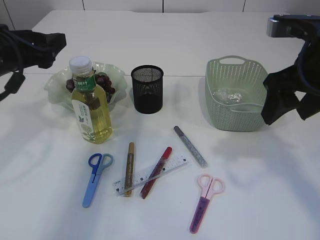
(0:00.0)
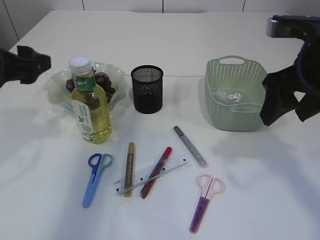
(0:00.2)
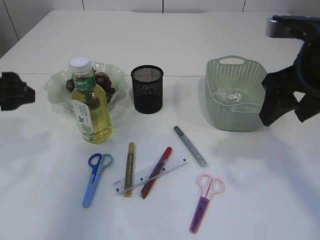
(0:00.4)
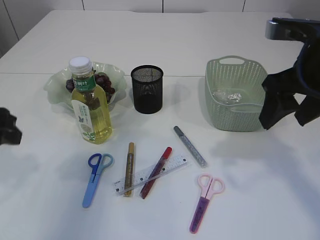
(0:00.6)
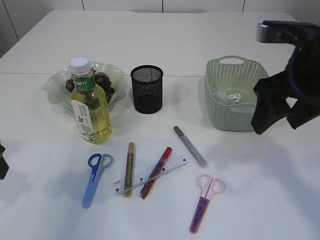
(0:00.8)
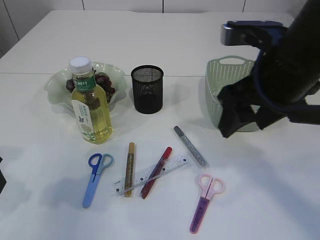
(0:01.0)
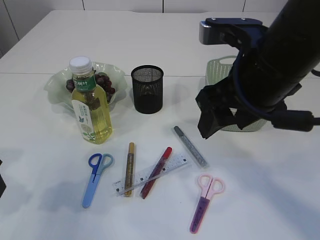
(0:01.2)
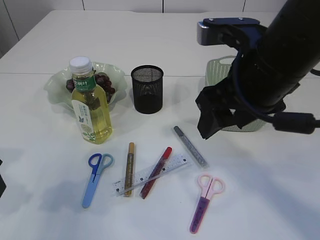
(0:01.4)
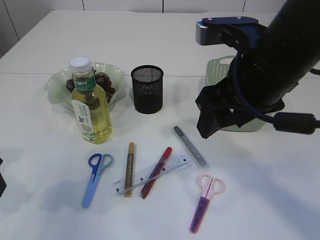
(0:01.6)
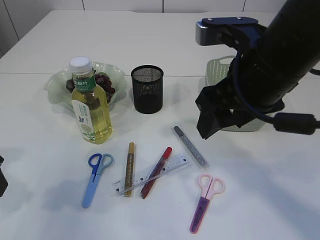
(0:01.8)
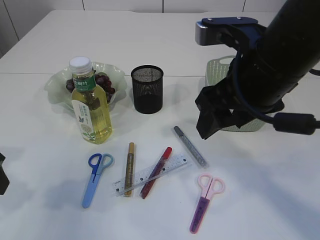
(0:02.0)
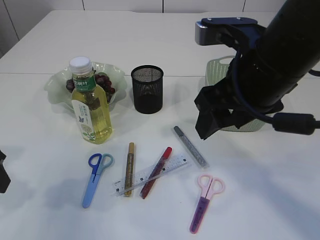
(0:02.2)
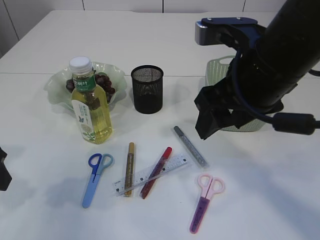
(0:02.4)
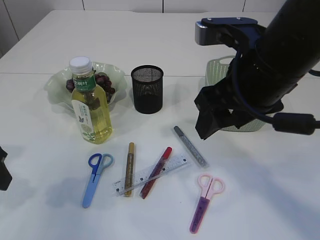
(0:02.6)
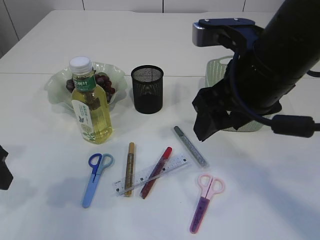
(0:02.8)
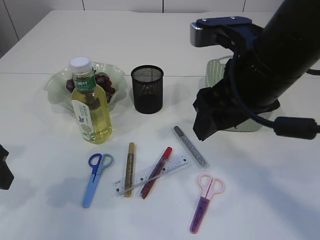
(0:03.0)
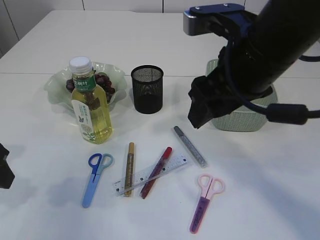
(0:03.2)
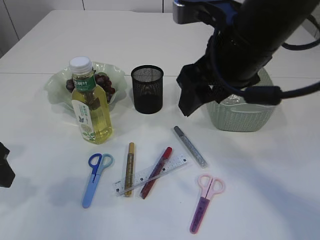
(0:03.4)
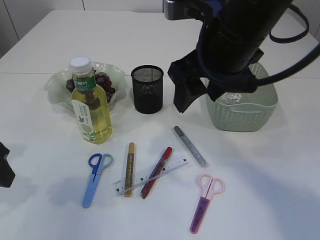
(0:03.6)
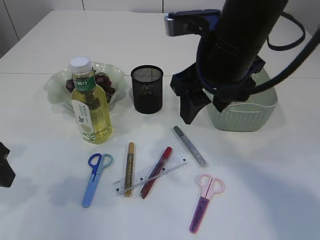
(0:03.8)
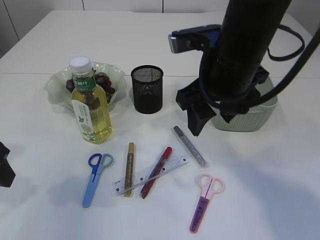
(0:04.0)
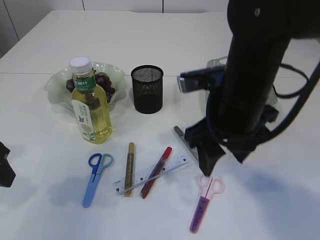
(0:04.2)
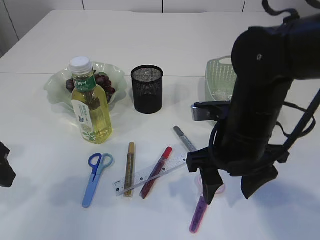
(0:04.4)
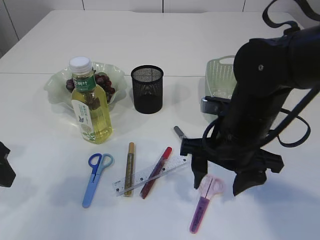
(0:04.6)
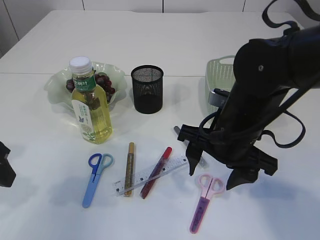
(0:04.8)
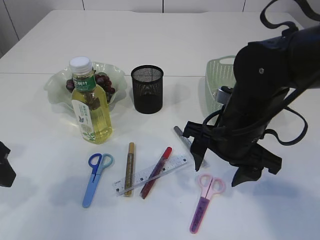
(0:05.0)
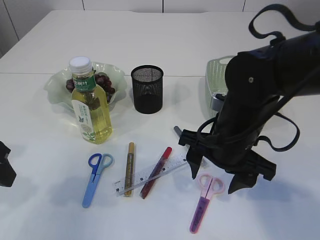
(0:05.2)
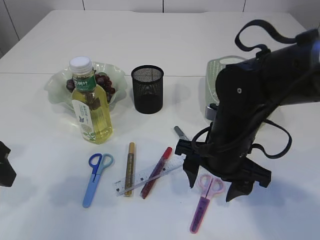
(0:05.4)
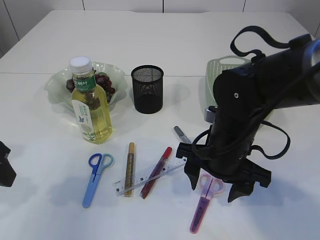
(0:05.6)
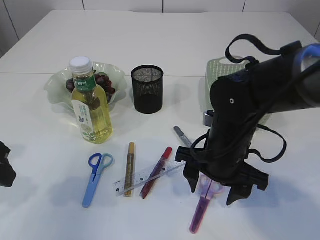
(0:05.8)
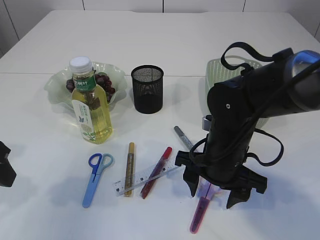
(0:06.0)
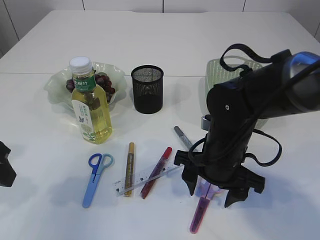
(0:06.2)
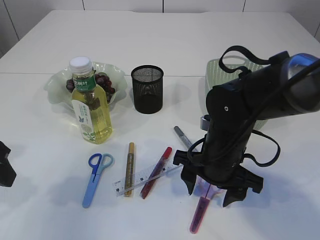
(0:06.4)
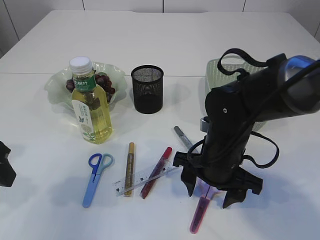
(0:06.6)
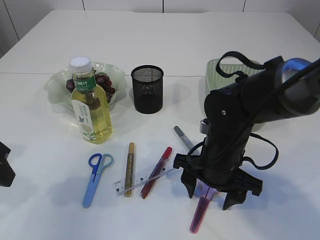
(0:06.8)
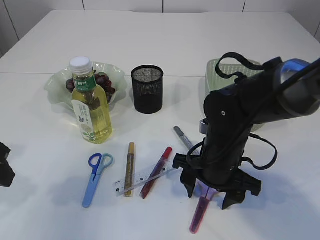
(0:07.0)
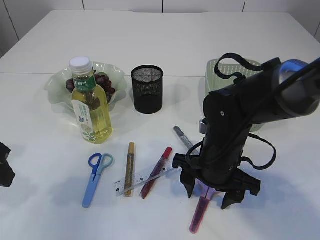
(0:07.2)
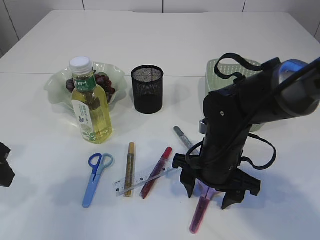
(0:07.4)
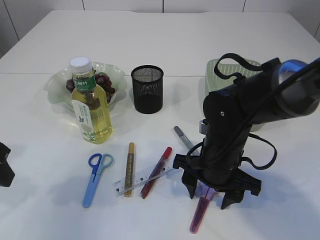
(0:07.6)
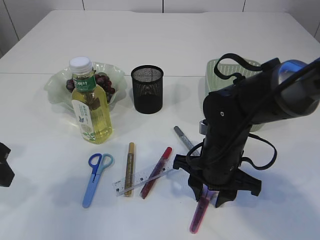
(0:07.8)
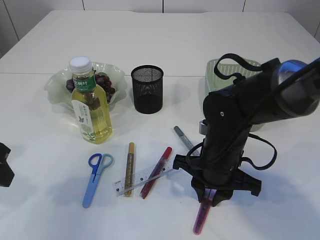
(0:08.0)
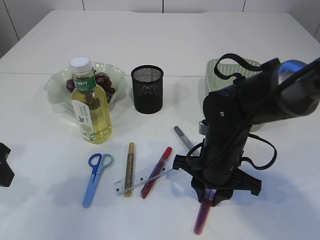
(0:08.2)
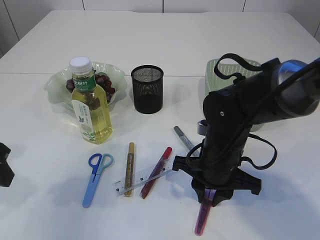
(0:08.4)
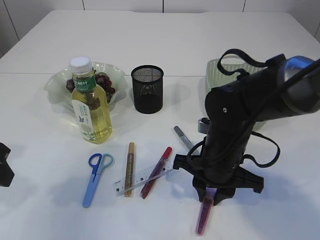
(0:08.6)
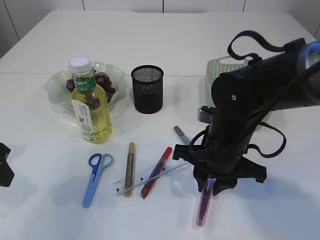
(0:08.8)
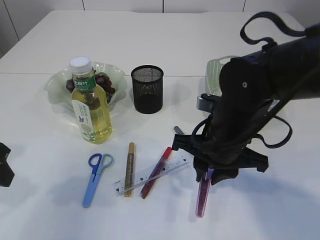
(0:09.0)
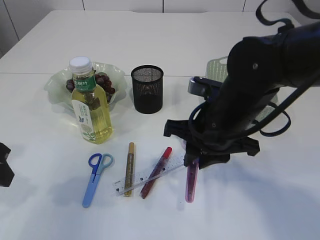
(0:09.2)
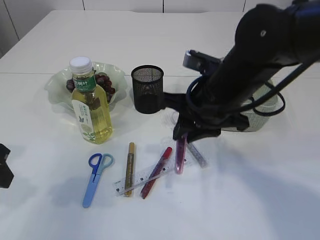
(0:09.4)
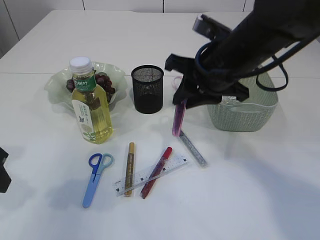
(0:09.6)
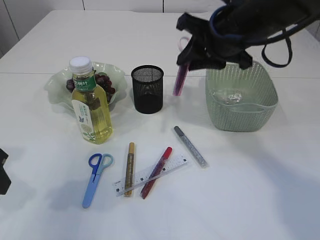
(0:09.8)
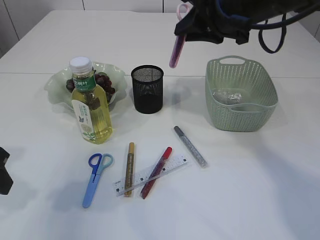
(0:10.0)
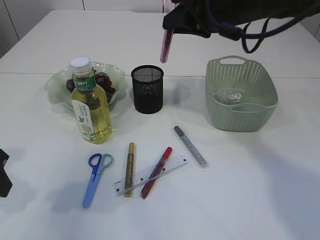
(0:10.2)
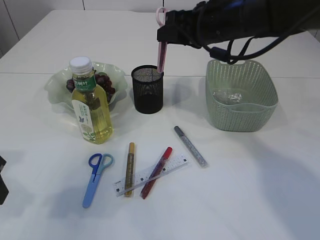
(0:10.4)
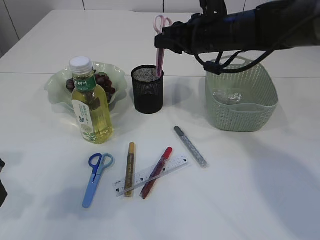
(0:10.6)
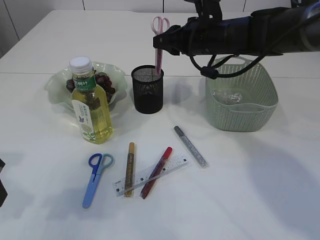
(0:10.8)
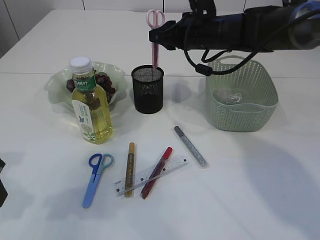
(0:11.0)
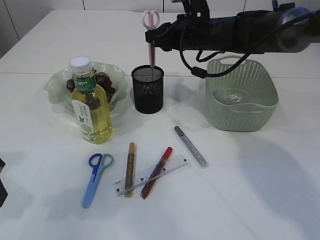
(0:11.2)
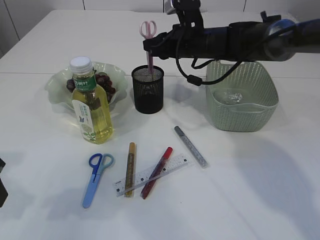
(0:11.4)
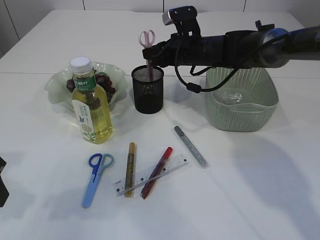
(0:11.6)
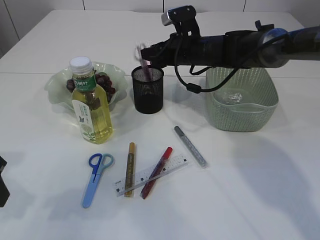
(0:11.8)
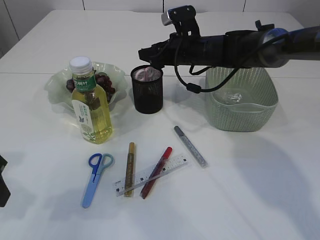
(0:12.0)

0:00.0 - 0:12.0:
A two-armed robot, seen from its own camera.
Step, 0:00.0 - 0:09.0: pick up the pink scissors.
0:00.0 - 0:01.6: The left gripper goes approximately 10 cm backward; the right gripper heads to the left, covering roughly 10 cm.
0:01.6 - 0:03.0: Both grippers stay put.
0:03.0 - 0:04.4: The right gripper goes about 10 cm downward.
0:04.4 - 0:06.0: The right gripper goes some 5 cm downward.
0:06.0 - 0:07.6: There are only small adjustments of the grippers.
0:07.6 - 0:09.0: The right gripper is displaced upward by about 5 cm, and closes up.
0:09.0 - 0:10.4: The right gripper goes about 15 cm forward and upward.
0:10.4 - 0:12.0: The right gripper shifts approximately 10 cm downward and forward, and opens its fingers.

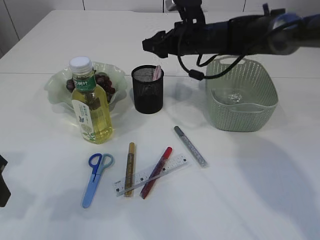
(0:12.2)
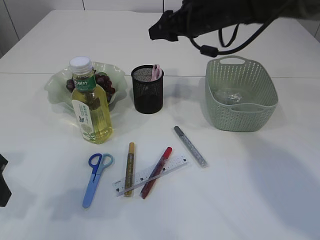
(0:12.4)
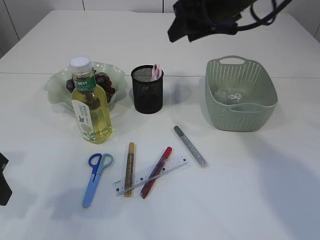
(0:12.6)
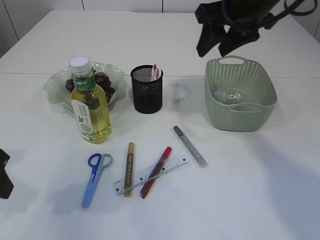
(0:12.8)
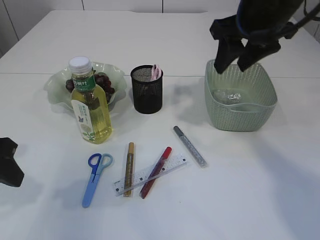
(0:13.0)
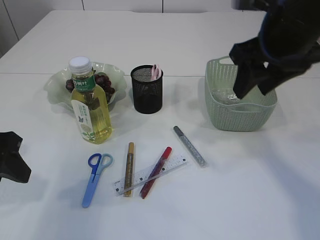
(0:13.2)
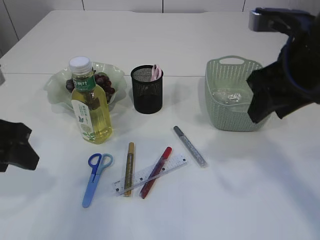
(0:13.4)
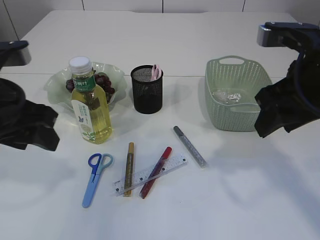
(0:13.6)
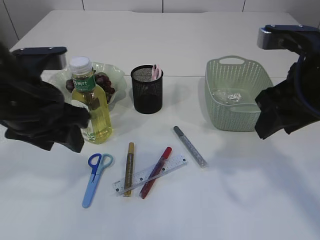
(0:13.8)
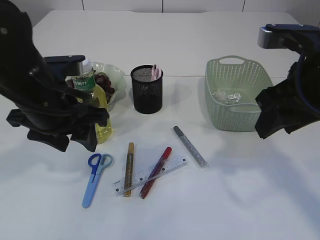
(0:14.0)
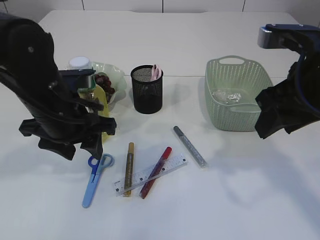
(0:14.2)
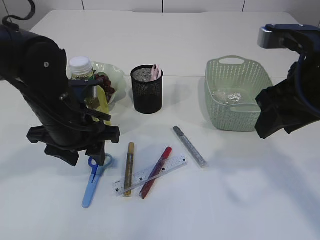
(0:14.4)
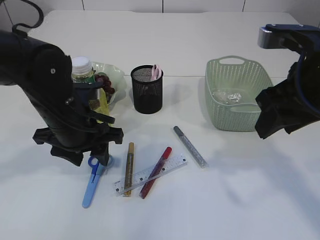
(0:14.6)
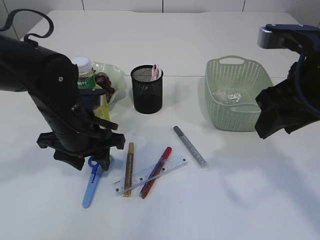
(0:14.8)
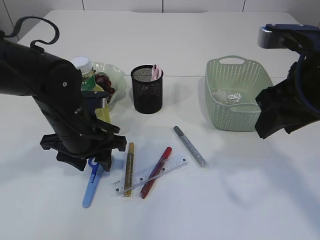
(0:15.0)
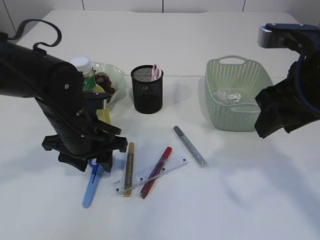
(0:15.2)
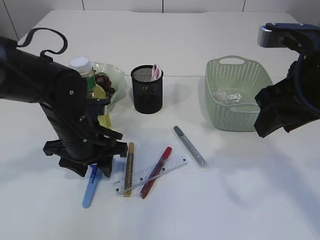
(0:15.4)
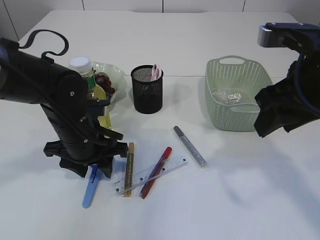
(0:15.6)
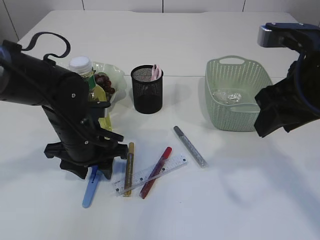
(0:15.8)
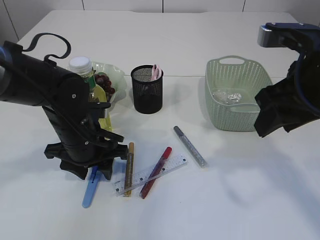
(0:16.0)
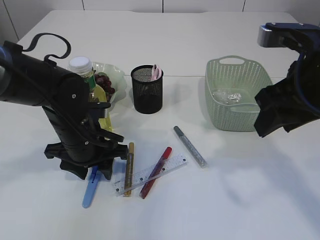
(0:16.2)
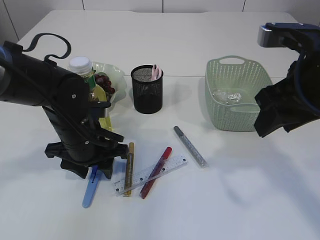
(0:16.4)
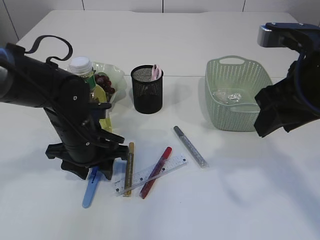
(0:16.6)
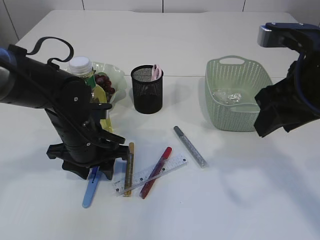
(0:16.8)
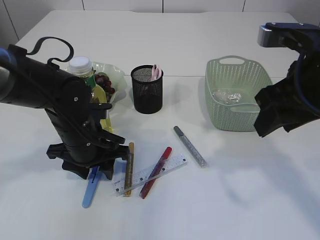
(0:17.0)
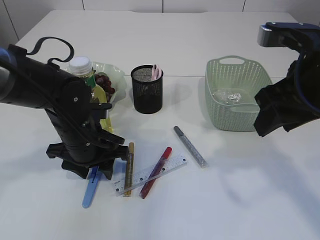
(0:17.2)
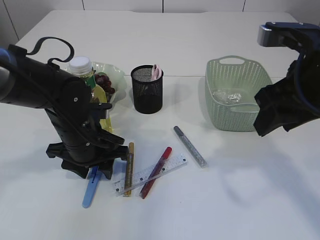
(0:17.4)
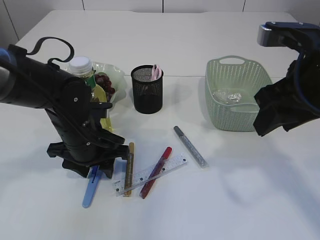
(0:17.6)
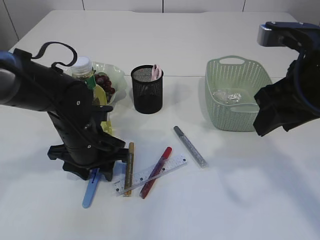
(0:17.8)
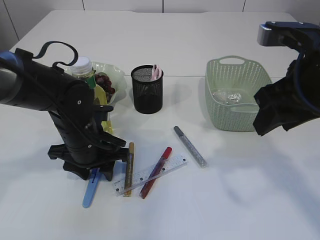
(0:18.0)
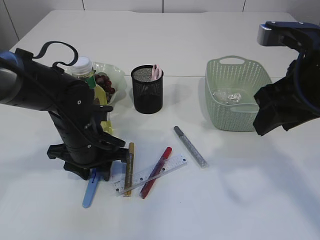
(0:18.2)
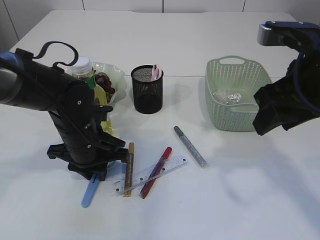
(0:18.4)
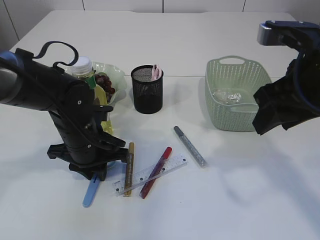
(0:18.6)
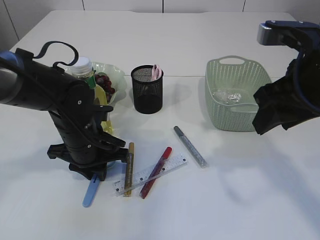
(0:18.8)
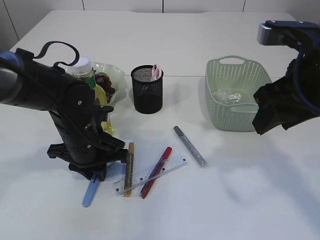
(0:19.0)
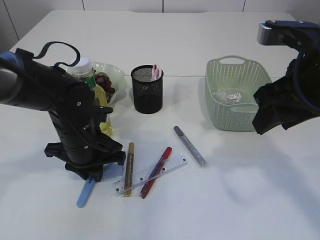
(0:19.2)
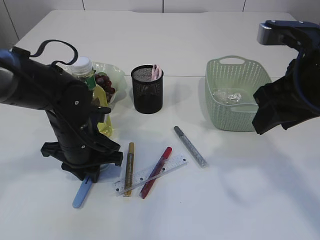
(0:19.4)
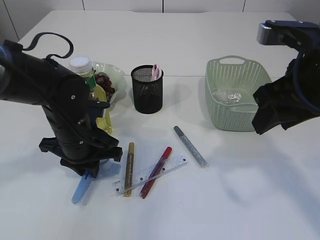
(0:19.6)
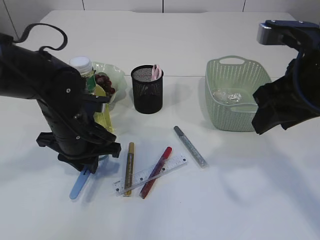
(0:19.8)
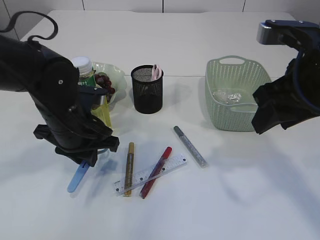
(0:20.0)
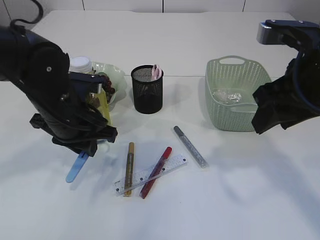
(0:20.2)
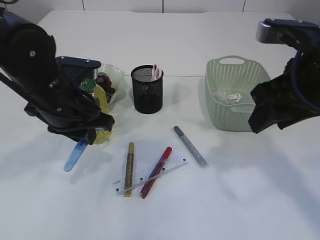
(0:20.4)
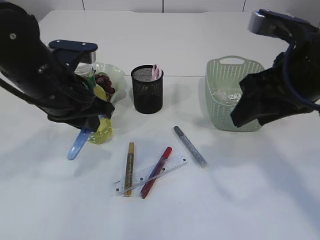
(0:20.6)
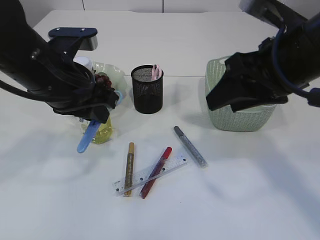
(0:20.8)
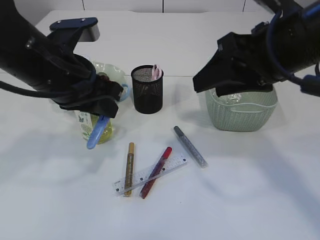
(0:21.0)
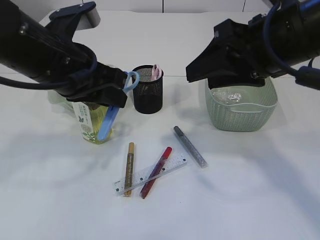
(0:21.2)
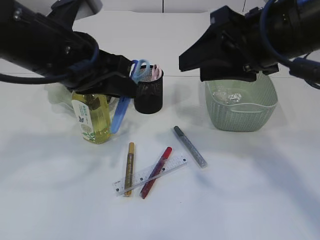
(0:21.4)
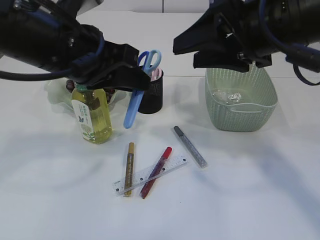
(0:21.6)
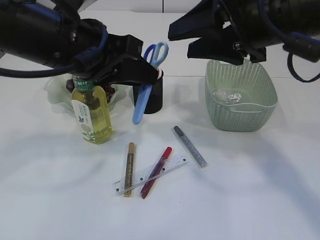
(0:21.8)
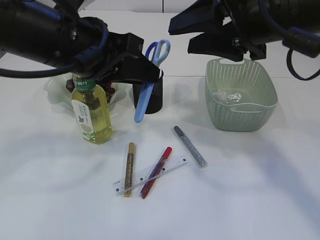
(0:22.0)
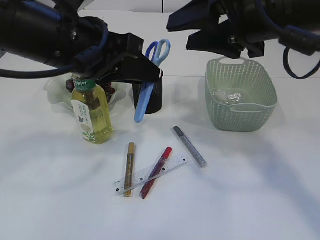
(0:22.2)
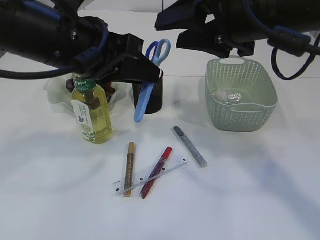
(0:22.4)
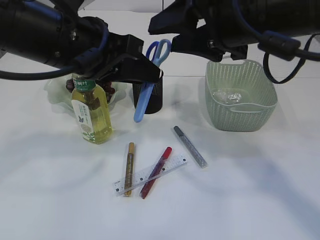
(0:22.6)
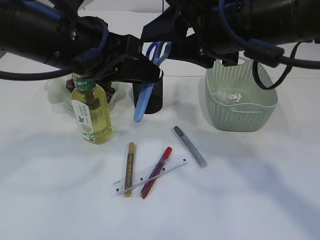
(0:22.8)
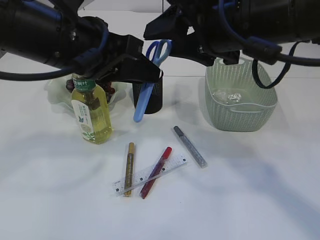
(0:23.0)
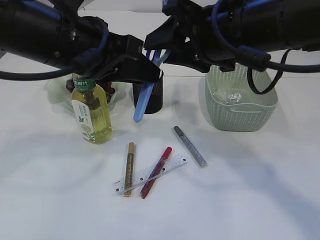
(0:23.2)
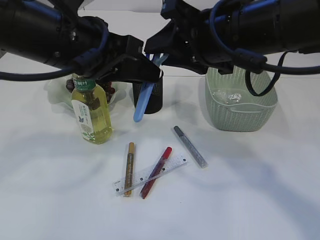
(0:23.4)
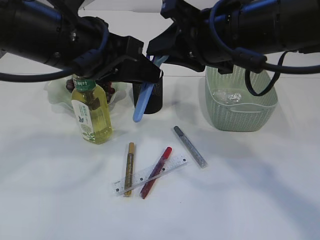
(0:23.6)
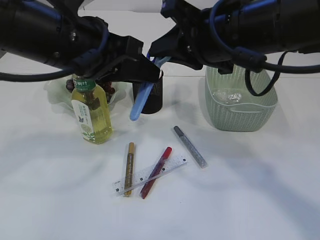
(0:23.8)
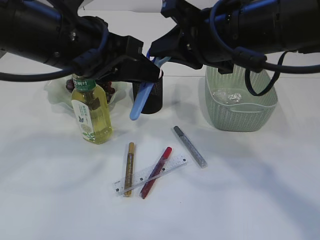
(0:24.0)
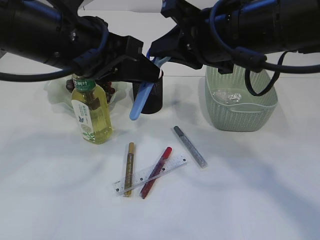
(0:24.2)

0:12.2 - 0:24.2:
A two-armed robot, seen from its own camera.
Step, 0:12.4 - 0:20.2: pick up the blue scissors.
0:12.2 - 0:13.8: The right gripper shifts some 25 cm backward. Meanwhile the left gripper goes roughly 10 cm to the right.
0:13.8 - 0:15.2: The left gripper travels downward and forward by some 10 cm.
0:15.2 - 0:16.6: The grippers move only a little.
0:16.6 - 0:18.2: Both grippers stay about where they are.
0:18.2 - 0:19.8: The left gripper closes its fingers.
0:19.8 - 0:21.2: The left gripper travels upward by approximately 15 cm. The right gripper ends up approximately 5 cm from where it was.
0:22.6 - 0:24.2: The right gripper closes its fingers.
